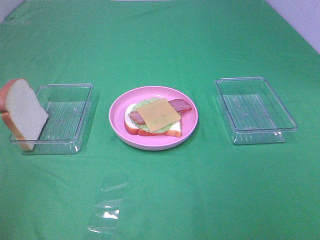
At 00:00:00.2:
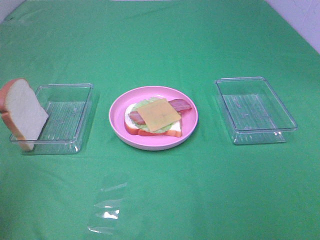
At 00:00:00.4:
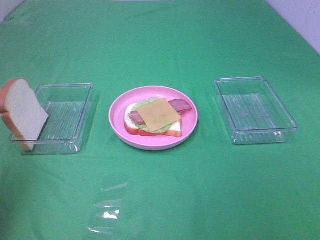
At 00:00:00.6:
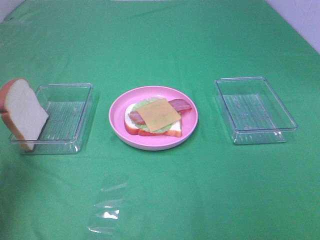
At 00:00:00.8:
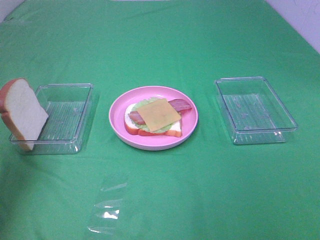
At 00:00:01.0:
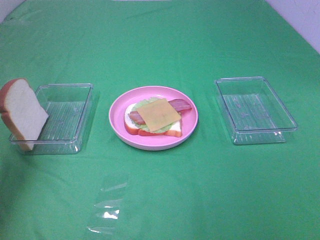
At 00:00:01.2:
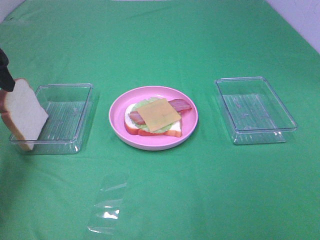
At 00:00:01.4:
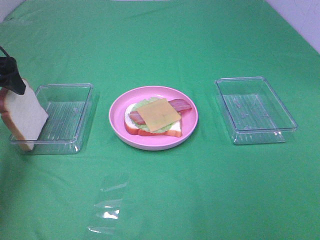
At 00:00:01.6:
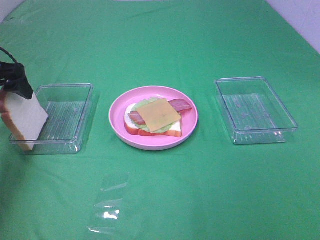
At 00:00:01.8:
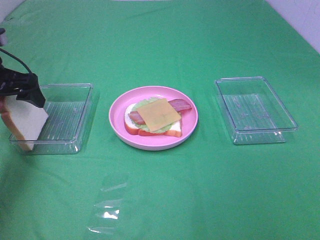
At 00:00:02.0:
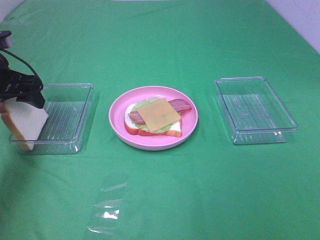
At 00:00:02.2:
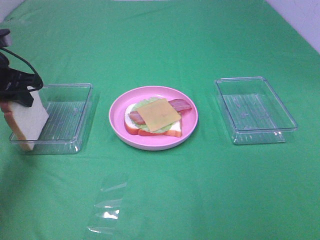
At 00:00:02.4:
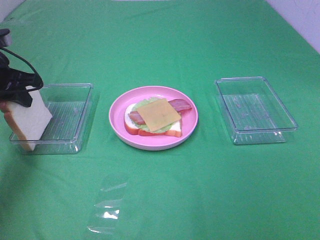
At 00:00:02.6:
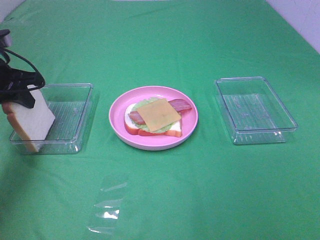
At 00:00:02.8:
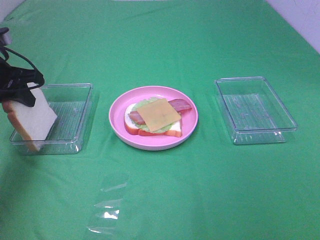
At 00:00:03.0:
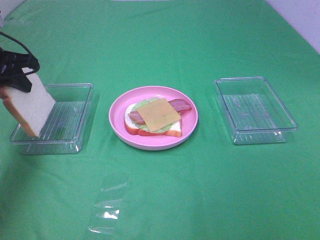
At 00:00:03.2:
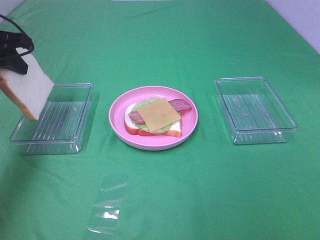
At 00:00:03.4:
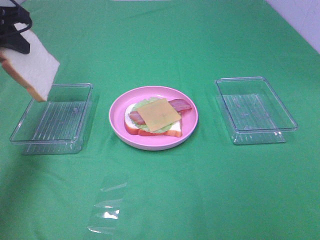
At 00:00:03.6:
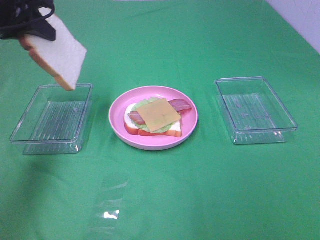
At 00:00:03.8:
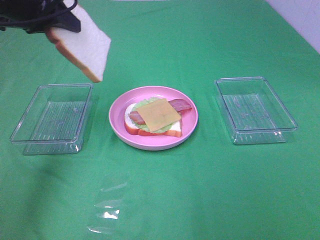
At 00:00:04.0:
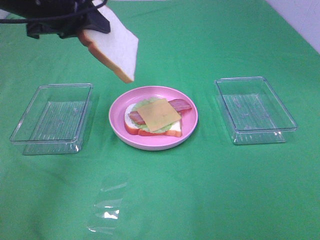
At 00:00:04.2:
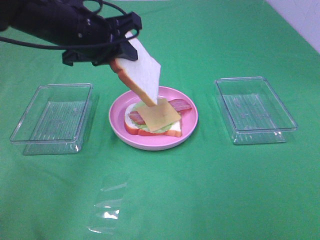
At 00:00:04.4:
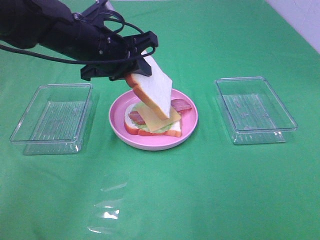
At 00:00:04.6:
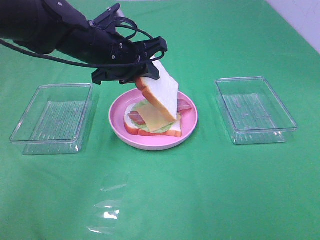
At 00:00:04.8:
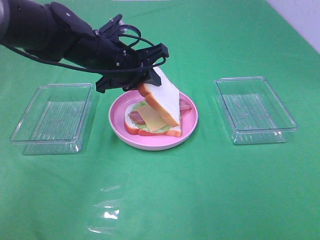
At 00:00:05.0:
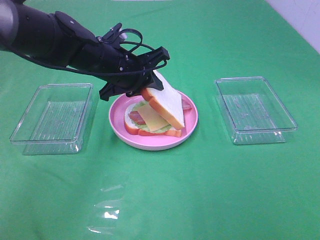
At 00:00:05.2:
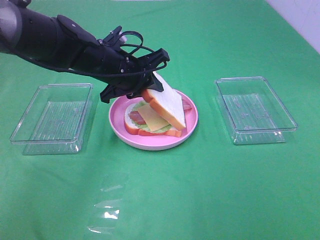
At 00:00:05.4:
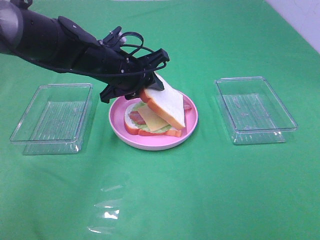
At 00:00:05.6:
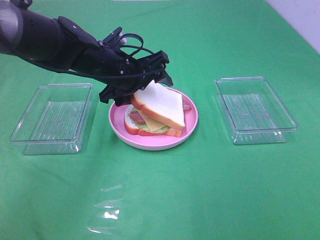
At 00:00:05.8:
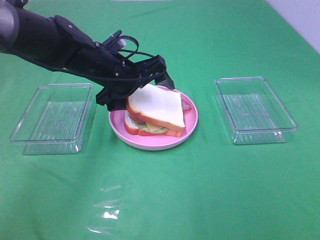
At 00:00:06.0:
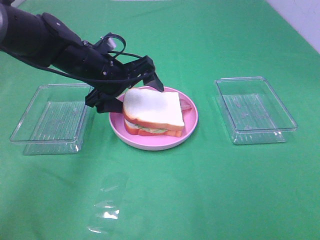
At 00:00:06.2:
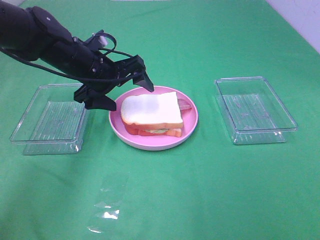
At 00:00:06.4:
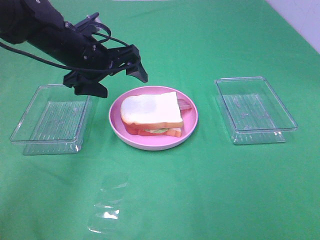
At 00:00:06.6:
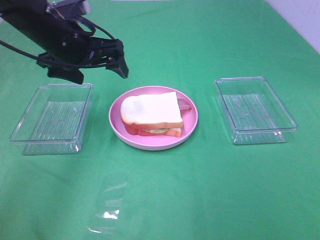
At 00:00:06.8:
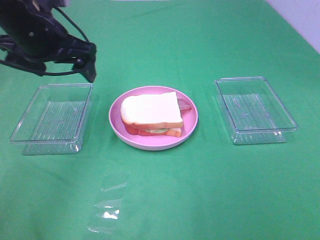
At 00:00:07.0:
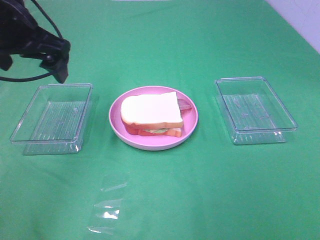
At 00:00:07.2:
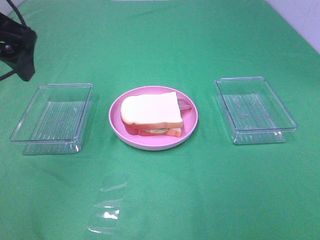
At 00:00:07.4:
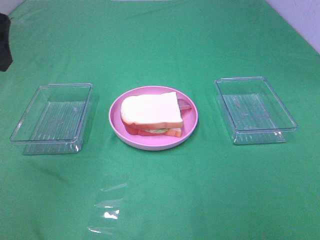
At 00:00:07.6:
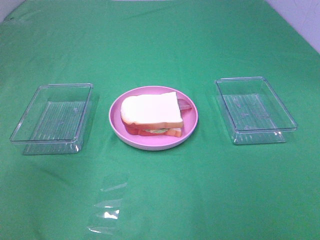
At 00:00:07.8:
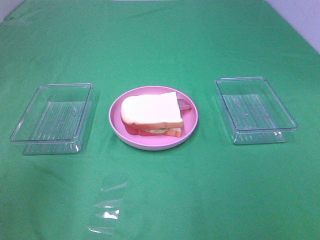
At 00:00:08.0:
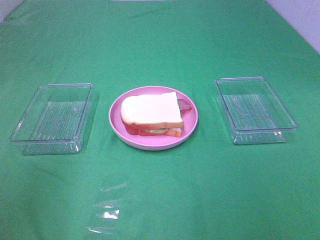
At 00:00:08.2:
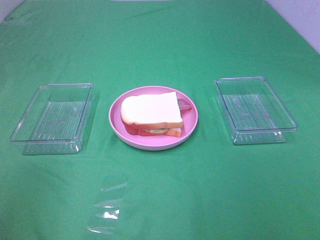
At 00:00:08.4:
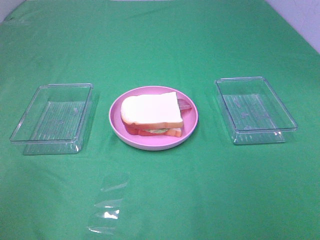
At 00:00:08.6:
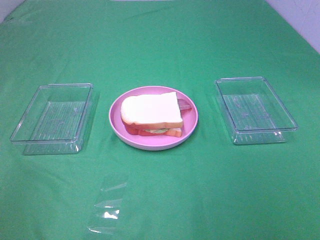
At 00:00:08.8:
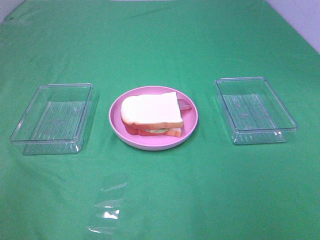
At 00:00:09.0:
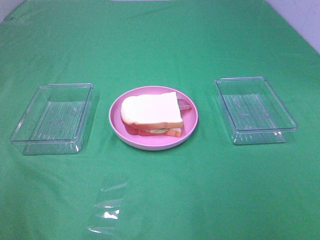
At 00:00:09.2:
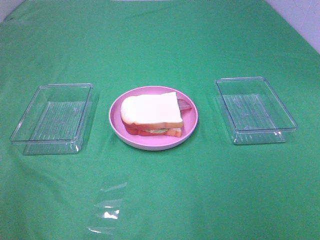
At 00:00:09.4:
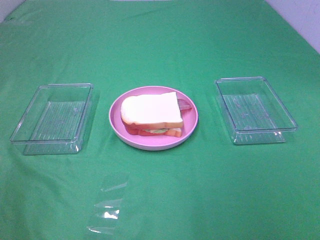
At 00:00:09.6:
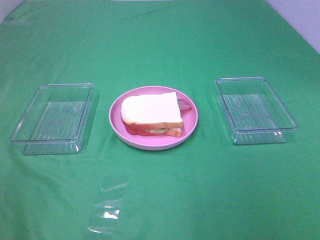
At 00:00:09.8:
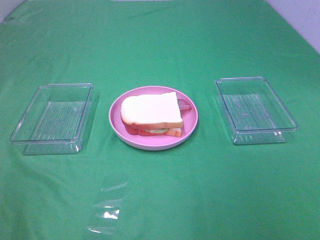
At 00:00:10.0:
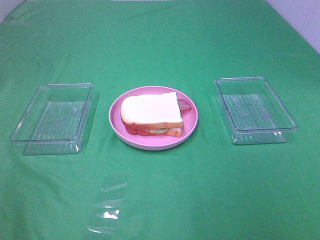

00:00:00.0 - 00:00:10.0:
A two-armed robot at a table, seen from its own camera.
Task of the whole recording: Make sandwiches.
Step, 00:00:00.0 - 00:00:02.4: Left hand:grab the bread slice.
Step, 00:00:02.6 - 00:00:06.2: Left hand:place the bread slice on the cheese slice.
00:00:00.0 - 00:00:01.4: The left gripper heads forward, covering approximately 30 cm.
00:00:01.4 - 00:00:02.8: The left gripper closes its fingers.
00:00:02.8 - 00:00:04.2: The left gripper goes some 15 cm to the right.
00:00:04.2 - 00:00:05.8: The left gripper is displaced downward by approximately 10 cm, and opens.
00:00:05.8 - 00:00:07.2: The left gripper travels upward, to the left and backward by approximately 25 cm.
00:00:07.2 - 00:00:08.6: The left gripper travels backward by about 25 cm.

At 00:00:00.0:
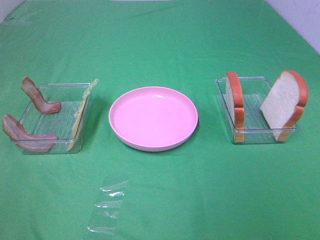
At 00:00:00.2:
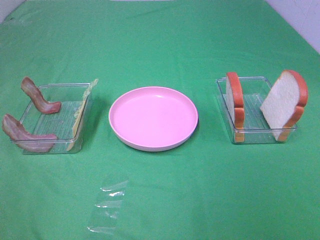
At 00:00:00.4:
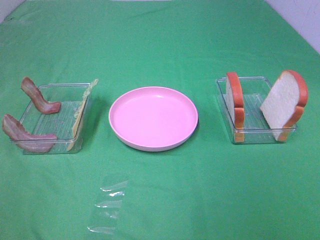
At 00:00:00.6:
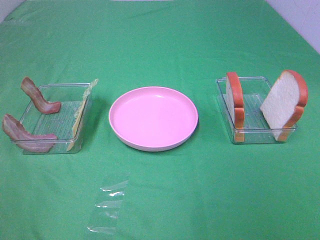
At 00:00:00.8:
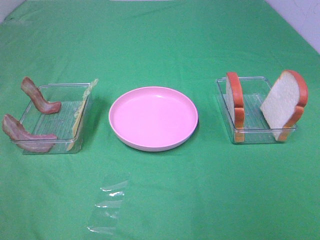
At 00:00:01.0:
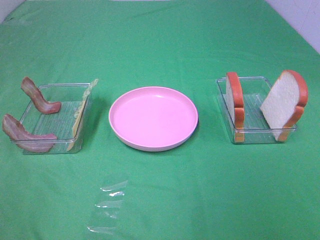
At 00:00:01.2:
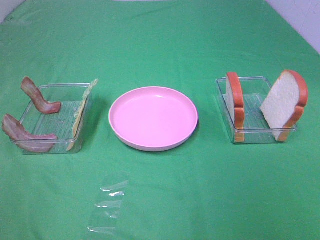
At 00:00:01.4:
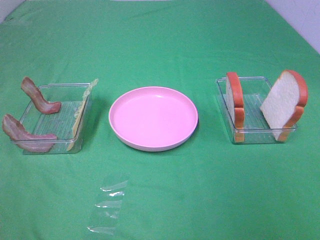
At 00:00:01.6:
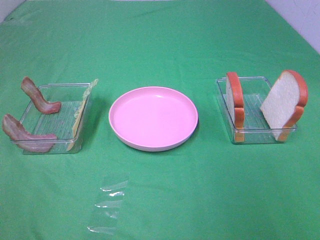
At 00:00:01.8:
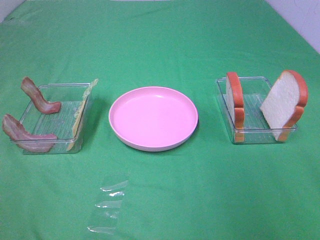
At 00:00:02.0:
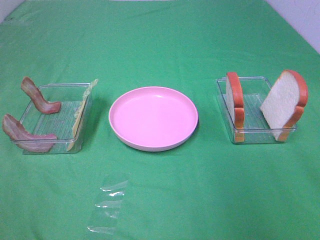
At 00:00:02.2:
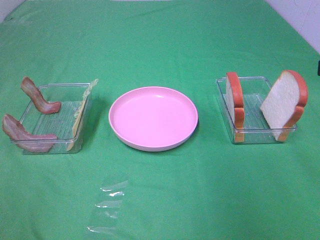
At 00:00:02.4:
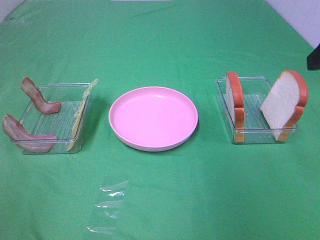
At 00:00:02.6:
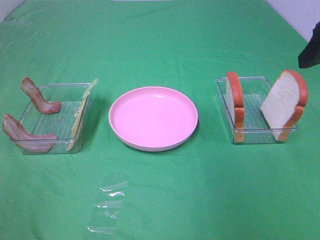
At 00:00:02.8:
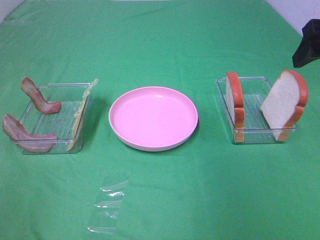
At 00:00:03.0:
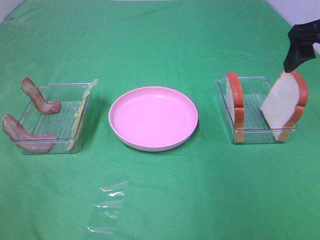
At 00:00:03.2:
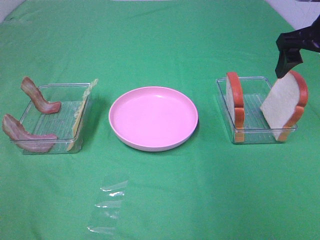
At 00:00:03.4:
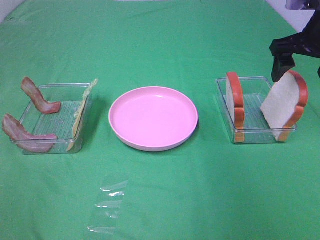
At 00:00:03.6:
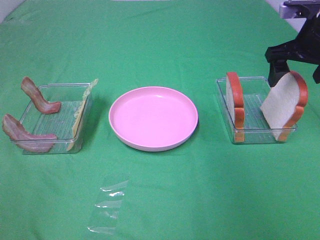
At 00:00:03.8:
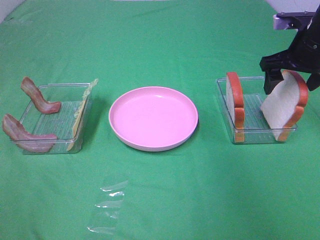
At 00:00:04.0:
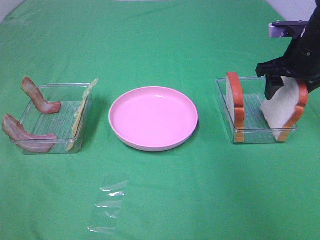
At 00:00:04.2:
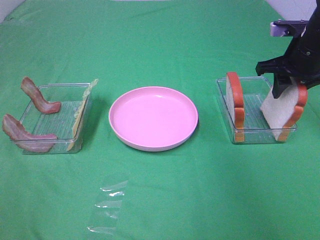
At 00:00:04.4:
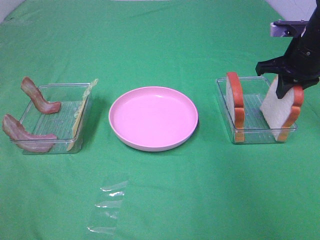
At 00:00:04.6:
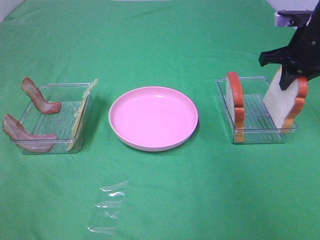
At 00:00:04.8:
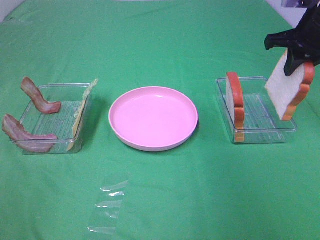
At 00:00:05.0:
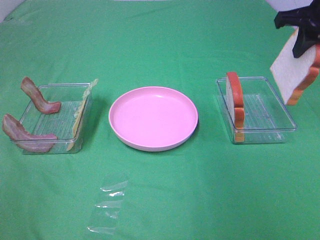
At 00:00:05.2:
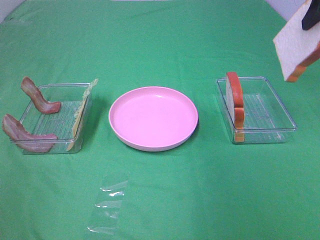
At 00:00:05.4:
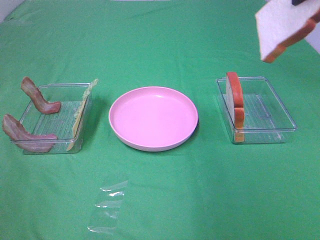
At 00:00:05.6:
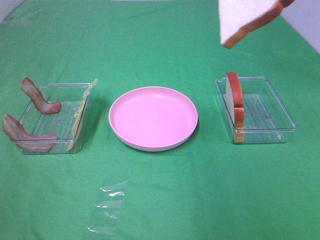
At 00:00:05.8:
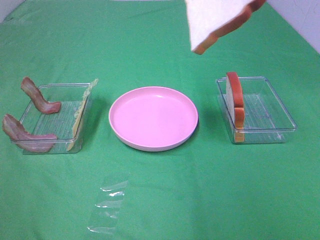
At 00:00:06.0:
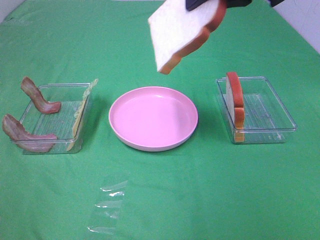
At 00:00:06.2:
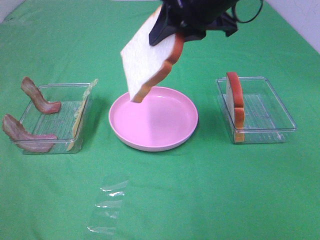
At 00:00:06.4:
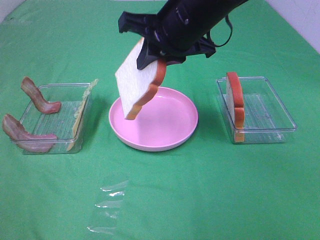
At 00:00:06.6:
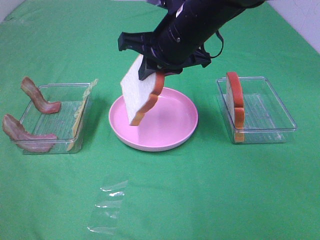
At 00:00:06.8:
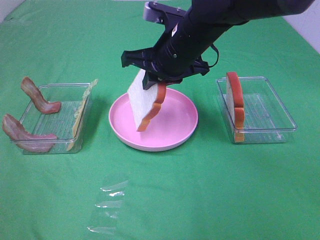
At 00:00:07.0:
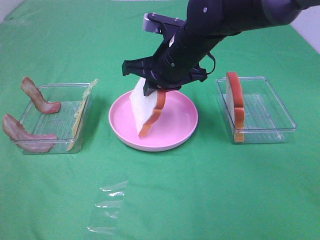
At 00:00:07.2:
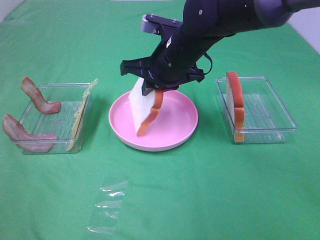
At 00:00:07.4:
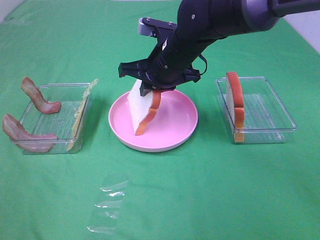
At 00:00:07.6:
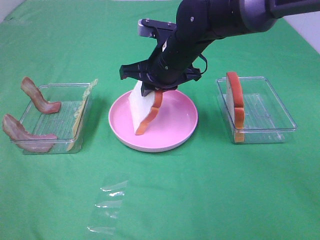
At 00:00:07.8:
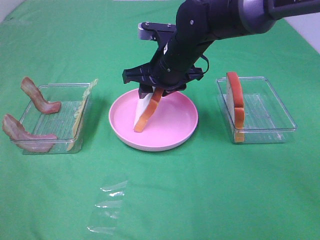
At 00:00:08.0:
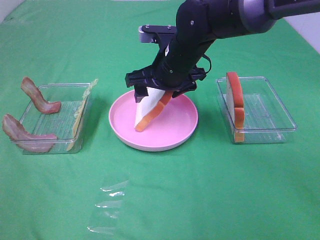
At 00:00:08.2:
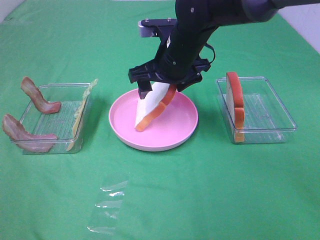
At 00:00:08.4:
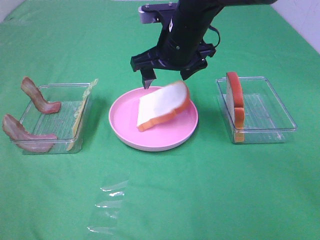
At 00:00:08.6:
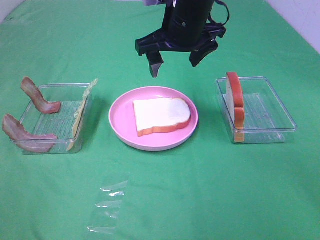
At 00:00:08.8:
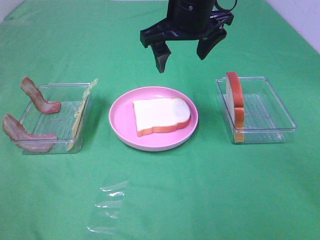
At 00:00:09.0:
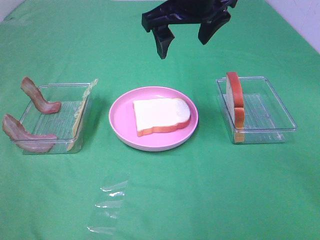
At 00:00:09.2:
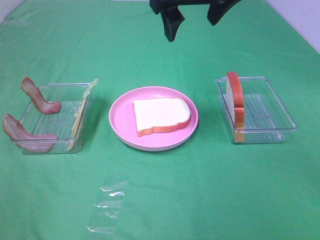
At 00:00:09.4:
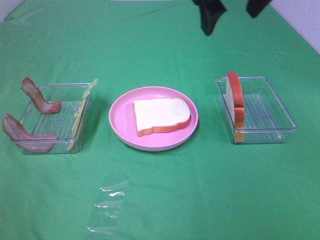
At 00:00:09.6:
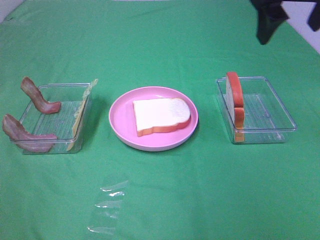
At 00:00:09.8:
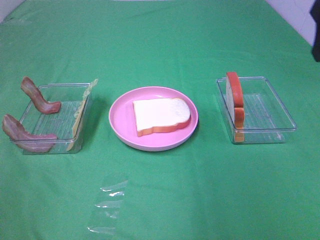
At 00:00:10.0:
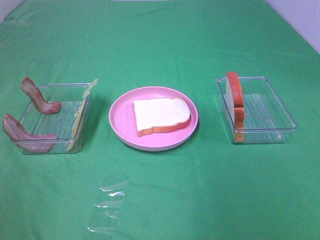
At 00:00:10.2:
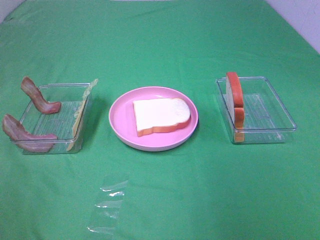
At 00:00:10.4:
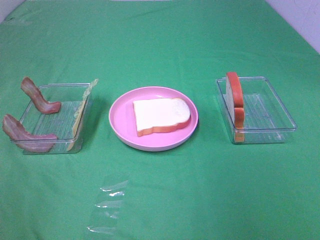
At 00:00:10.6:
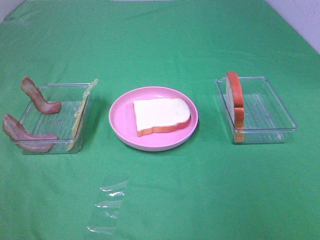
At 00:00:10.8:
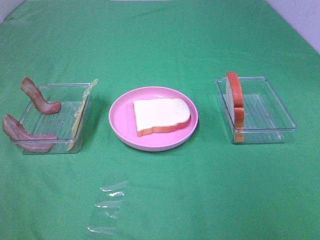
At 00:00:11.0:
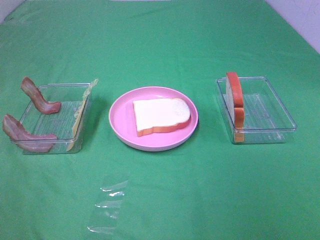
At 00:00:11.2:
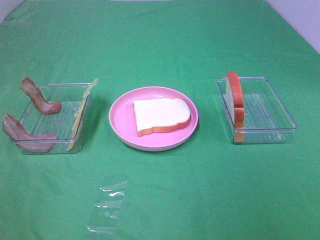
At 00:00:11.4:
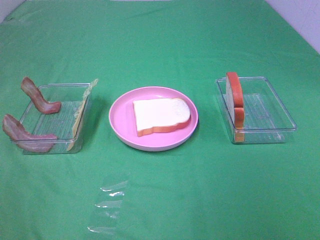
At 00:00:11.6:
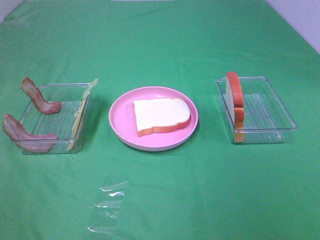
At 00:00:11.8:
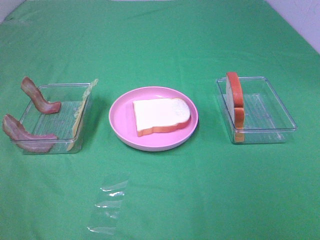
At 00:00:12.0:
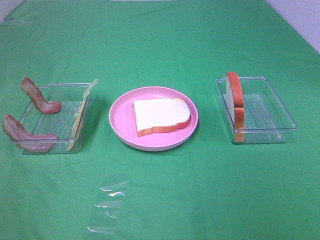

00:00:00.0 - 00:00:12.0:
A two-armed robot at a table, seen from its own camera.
Task of the whole recording: Make sandwiches.
Step, 00:00:00.0 - 00:00:04.2: Right hand:grab the bread slice.
Step, 00:00:04.4 - 00:00:08.4: Right hand:place the bread slice on the plate.
00:00:01.6 - 00:00:03.0: The right gripper is displaced forward by roughly 25 cm.
00:00:03.0 - 00:00:04.4: The right gripper shifts some 10 cm downward and forward, and closes.
00:00:04.4 - 00:00:06.0: The right gripper is displaced upward, to the left and backward by roughly 25 cm.
00:00:06.0 - 00:00:07.6: The right gripper heads downward and to the left, covering about 20 cm.
00:00:07.6 - 00:00:09.0: The right gripper travels upward by some 15 cm, and opens.
00:00:09.0 - 00:00:10.4: The right gripper heads backward and to the right, covering roughly 35 cm.
